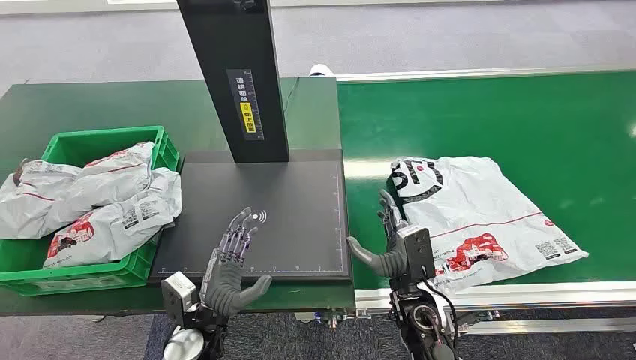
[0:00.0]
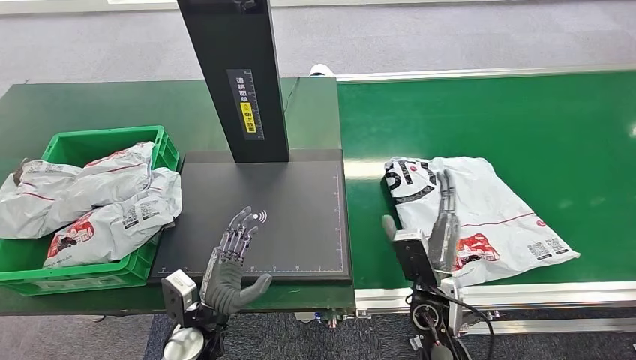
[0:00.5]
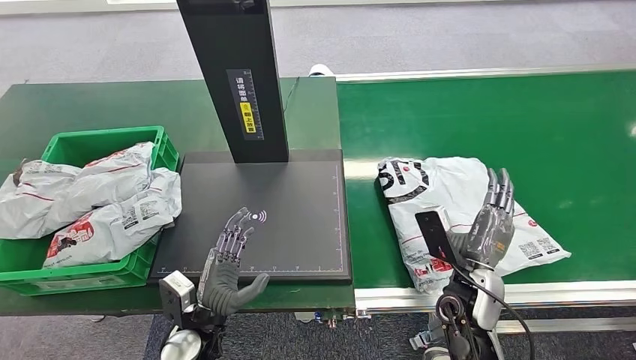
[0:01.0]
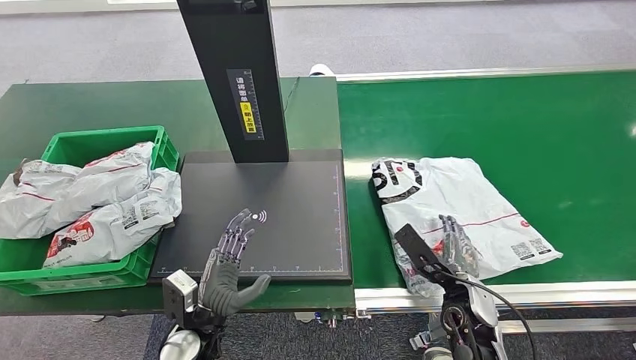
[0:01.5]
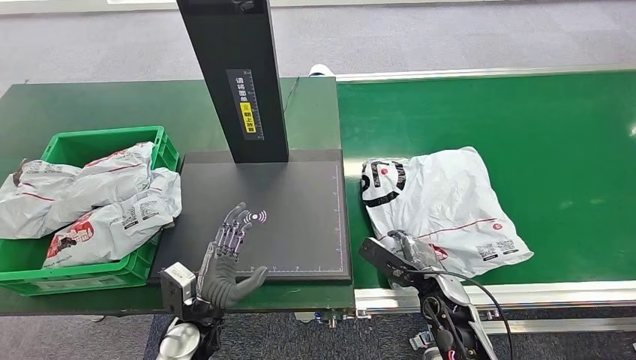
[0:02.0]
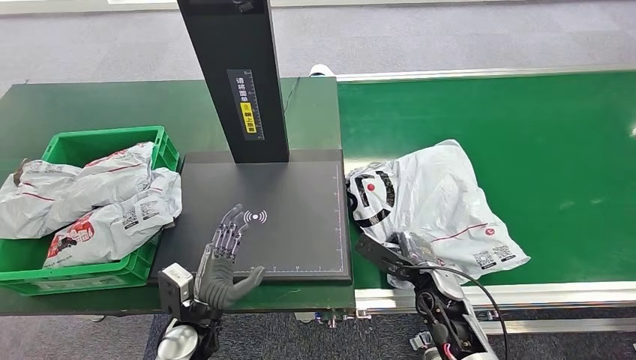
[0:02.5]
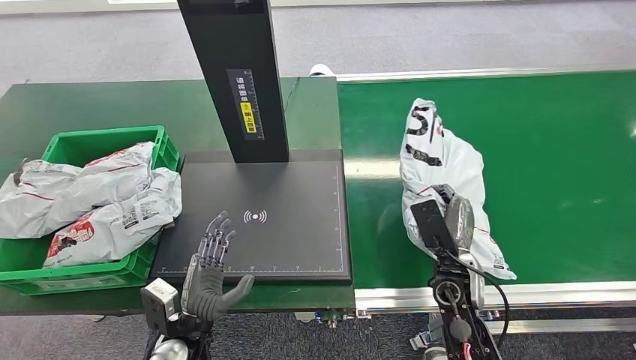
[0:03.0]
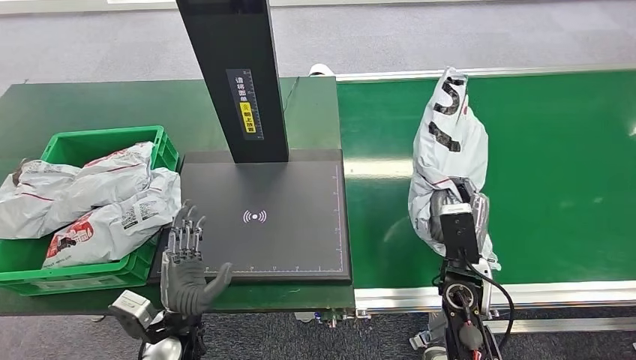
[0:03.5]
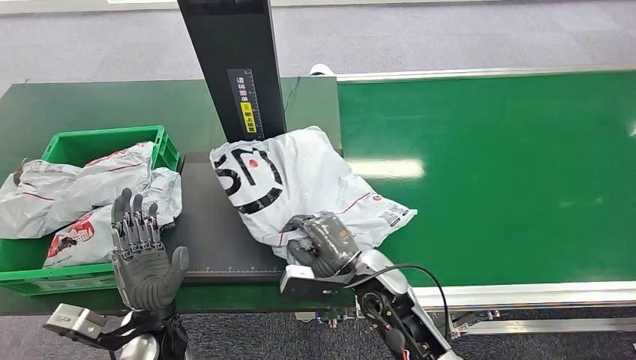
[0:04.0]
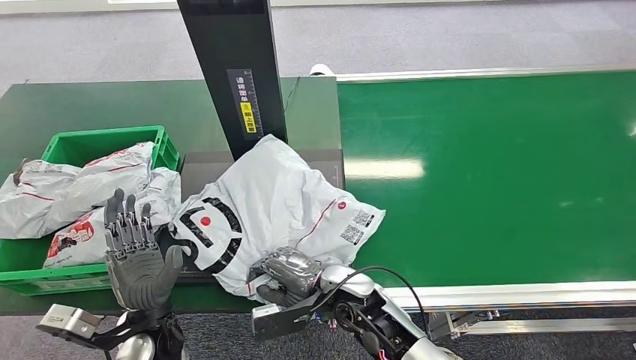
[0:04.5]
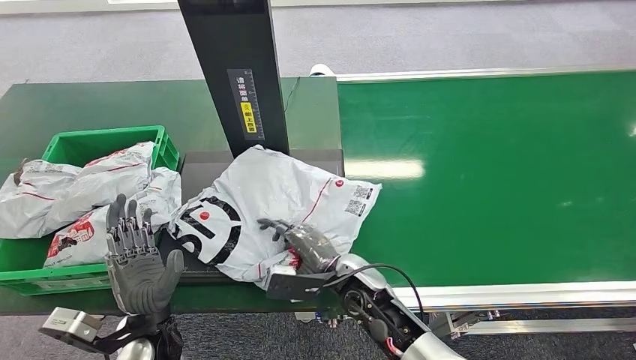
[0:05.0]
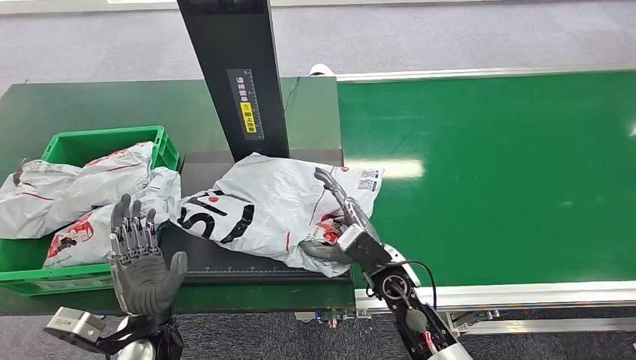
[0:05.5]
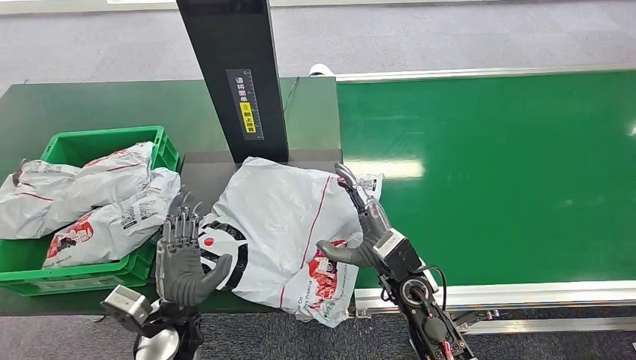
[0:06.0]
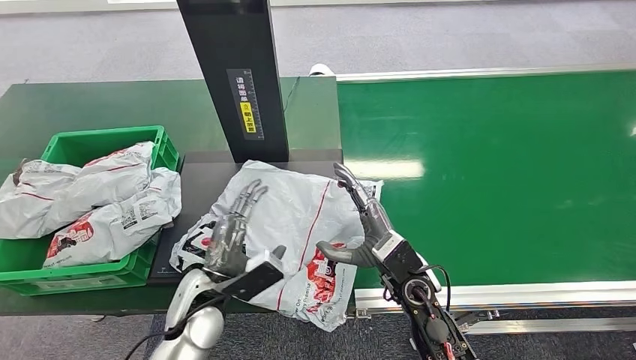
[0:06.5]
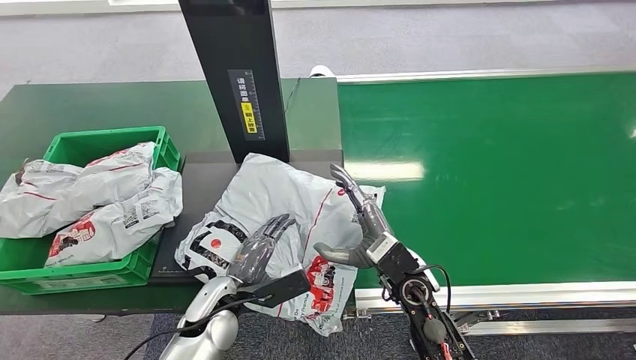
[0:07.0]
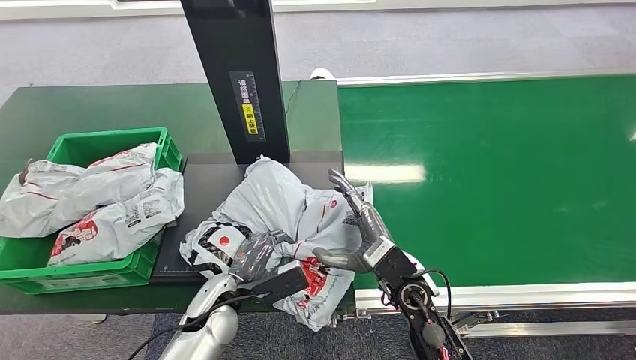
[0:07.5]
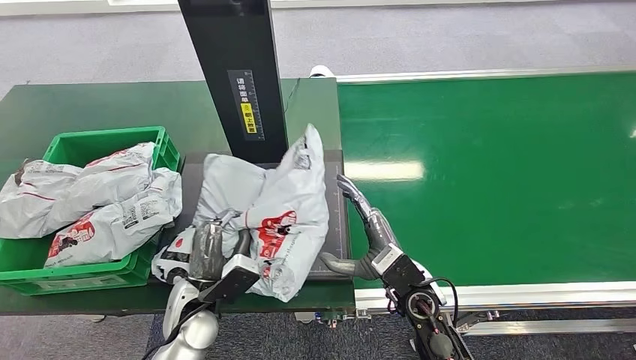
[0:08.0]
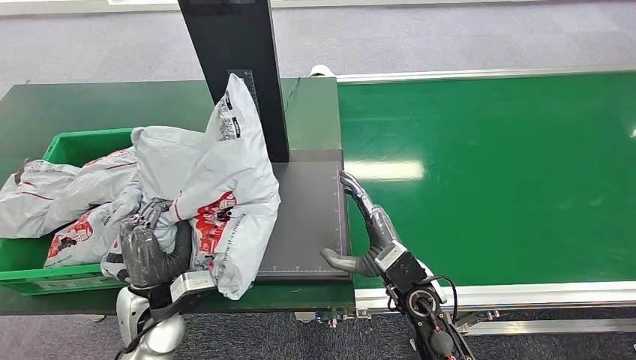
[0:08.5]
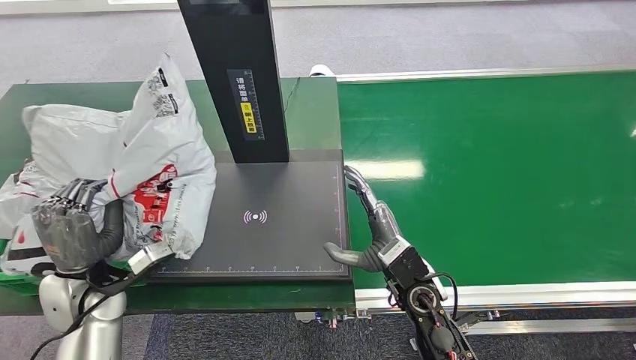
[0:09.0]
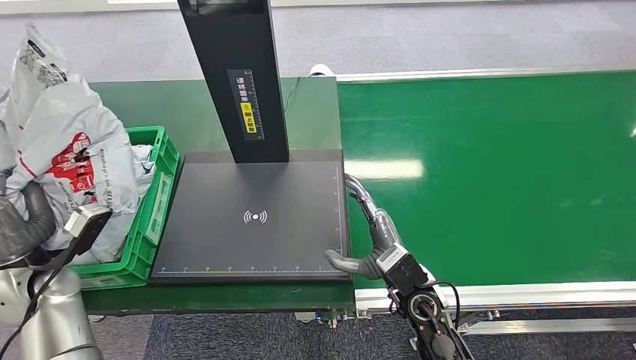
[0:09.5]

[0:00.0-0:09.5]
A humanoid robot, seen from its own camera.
Task of the whole recording: Weigh the package on the weighing device and place it in the left basket.
Step, 0:00.0 to 0:03.0: Pick up the package from the conveyor belt.
Step, 0:03.5 to 0:06.0: Place the package onto the inbound machine.
Step, 0:06.5 to 0:08.5: Pick up the package from the inbound machine.

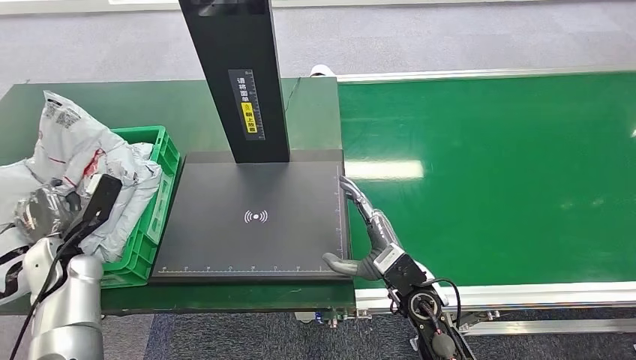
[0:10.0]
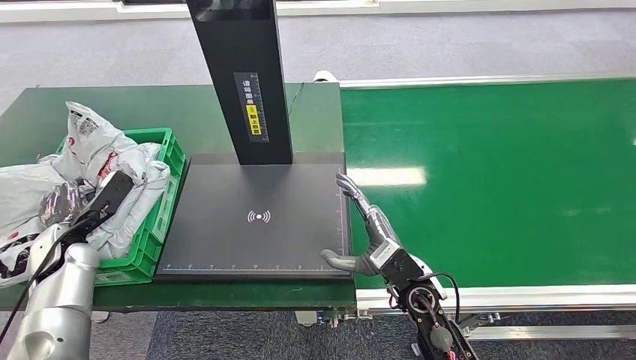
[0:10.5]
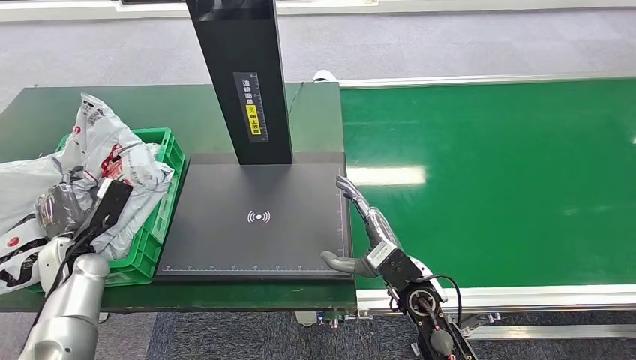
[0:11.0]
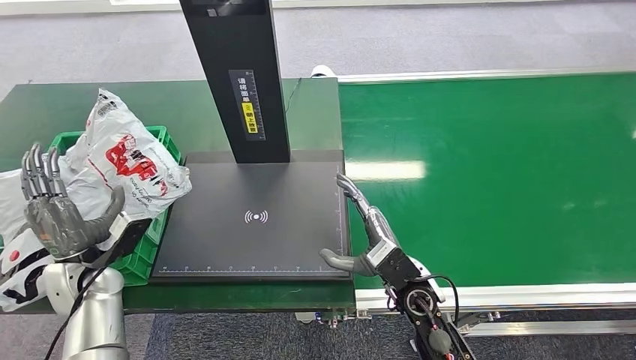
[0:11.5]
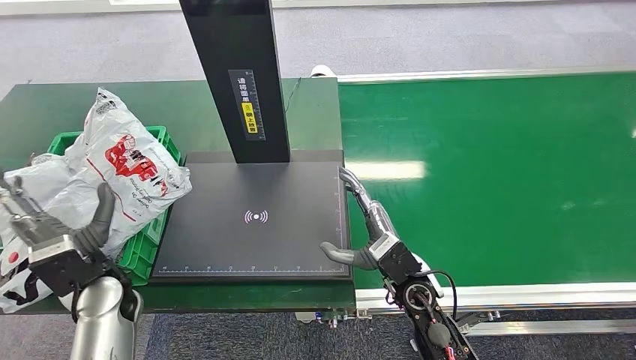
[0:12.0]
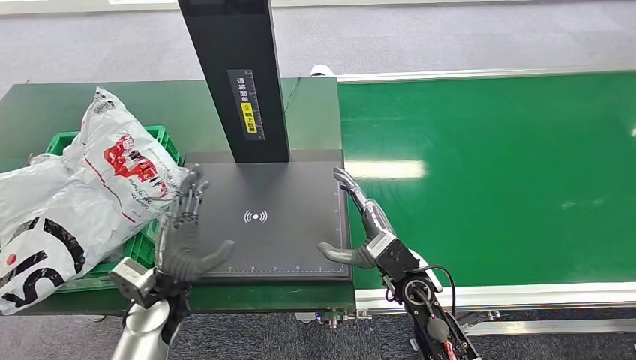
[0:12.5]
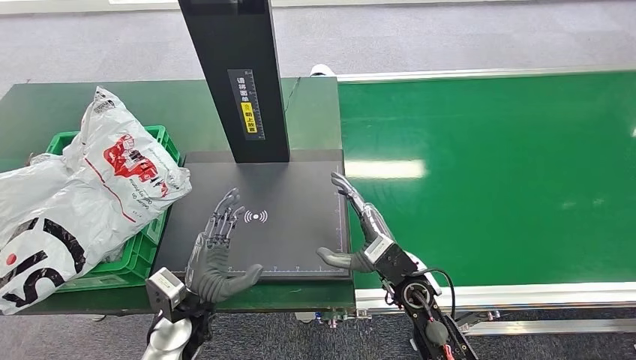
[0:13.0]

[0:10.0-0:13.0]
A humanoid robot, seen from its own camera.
Task of the whole recording: Weigh the package on the weighing device and place it in the left basket.
Step, 0:10.0 to 0:13.0: Place the package into the parcel locker.
0:10.0 to 0:11.5: The left hand is displaced to the right by approximately 5 cm.
0:11.5 to 0:13.0: The left hand shifts roughly 15 cm to the right.
